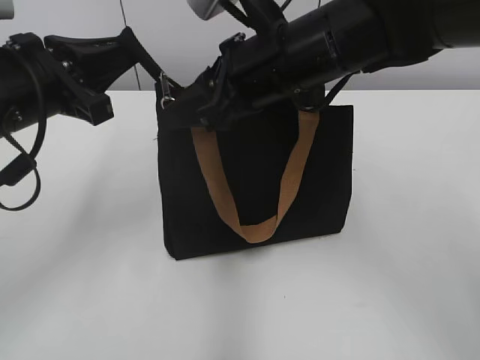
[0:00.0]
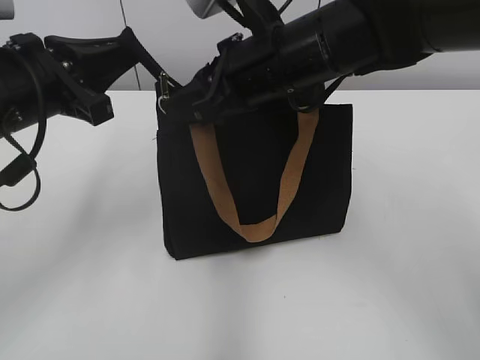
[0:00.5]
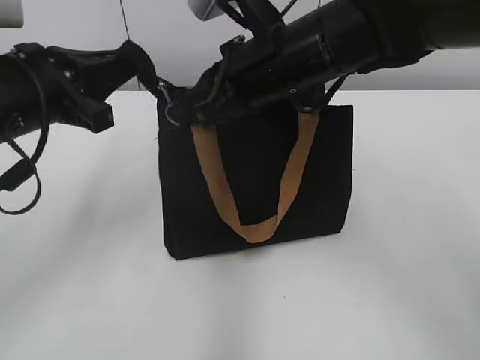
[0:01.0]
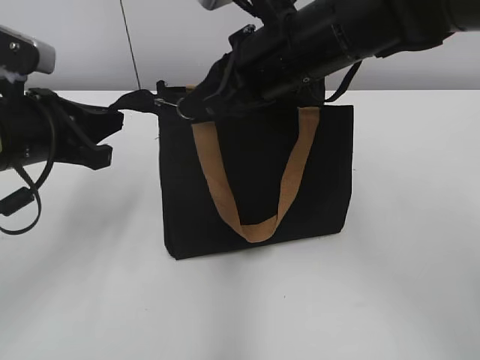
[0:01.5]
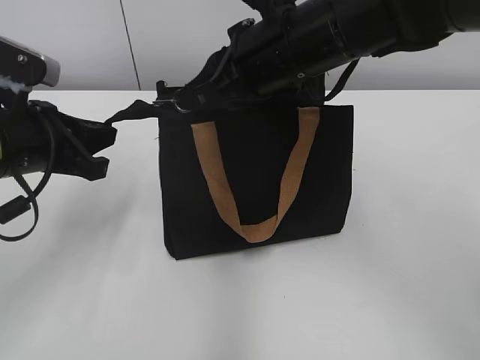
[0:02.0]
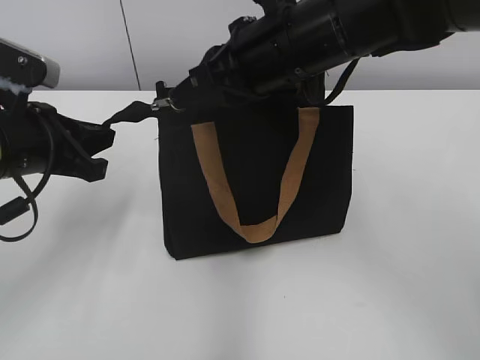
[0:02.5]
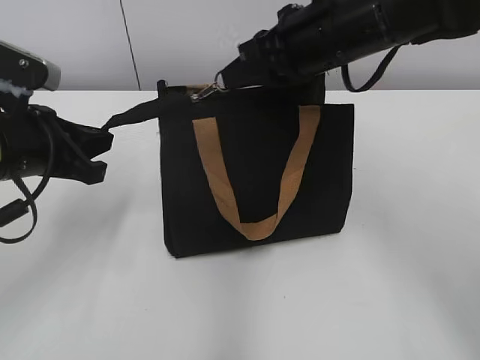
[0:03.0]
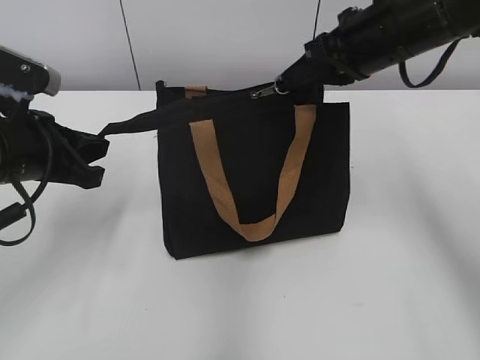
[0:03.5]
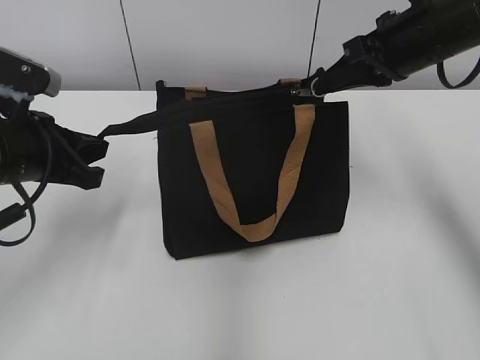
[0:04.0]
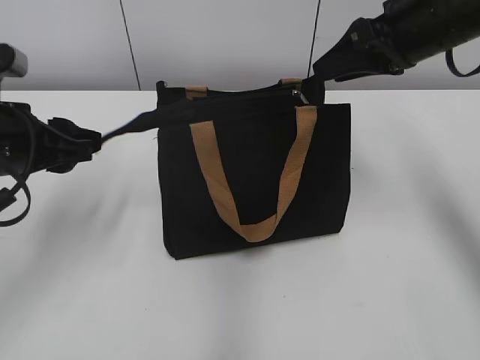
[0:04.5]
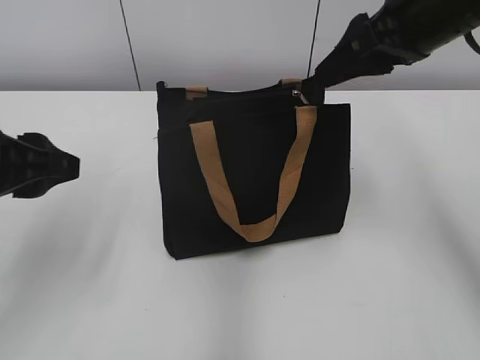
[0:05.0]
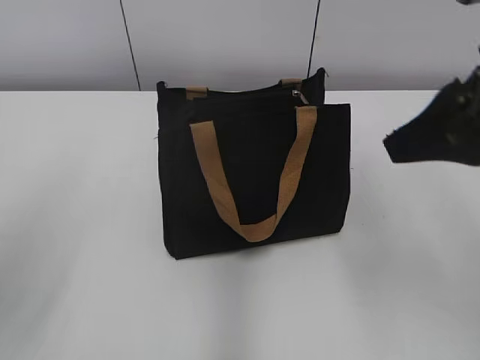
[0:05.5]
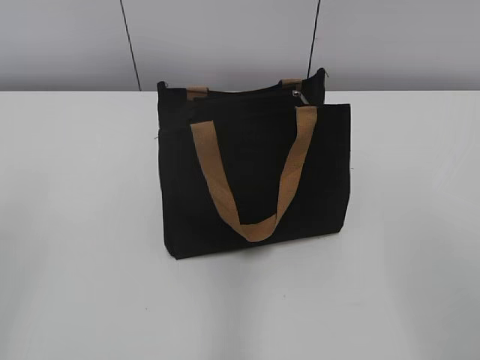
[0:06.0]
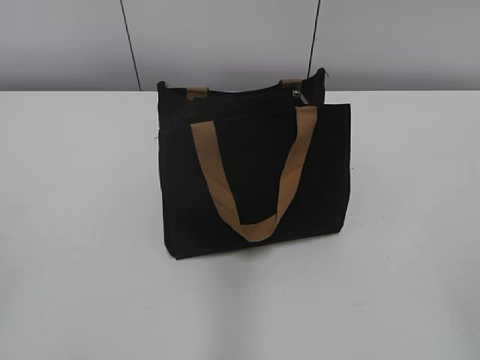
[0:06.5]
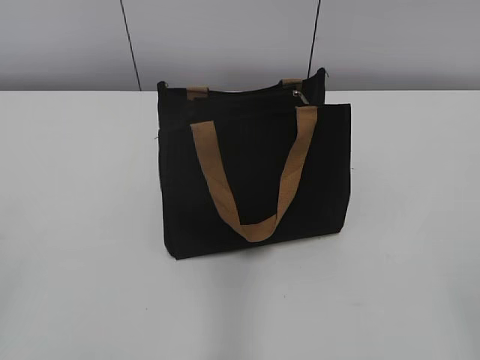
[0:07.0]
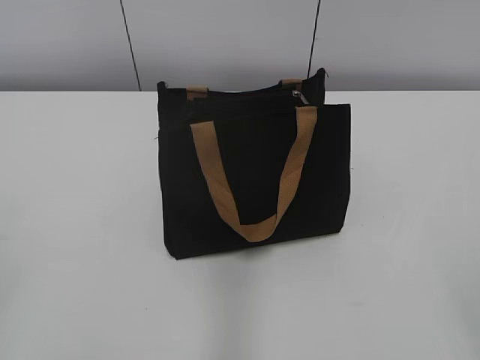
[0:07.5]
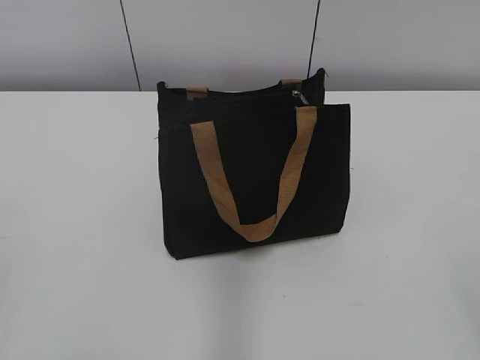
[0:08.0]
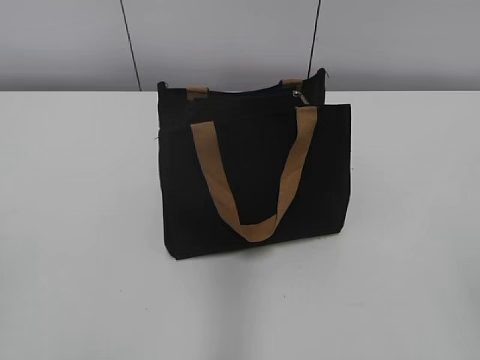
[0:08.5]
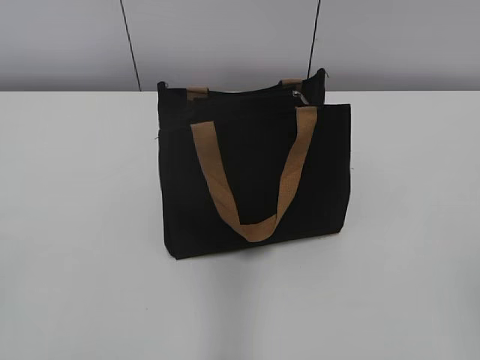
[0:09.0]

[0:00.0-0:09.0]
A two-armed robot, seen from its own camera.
Step, 0:00.0 to 0:04.0: Zip up the bag with your right hand.
0:00.0 to 0:02.0: The right gripper closes its fingers; the left gripper moves roughly 5 cm.
0:02.0 to 0:04.5: The right gripper goes some 15 cm to the right, and opens its fingers, while the left gripper opens its fingers.
0:04.5 to 0:07.0: The left gripper travels backward by some 25 cm; the right gripper moves backward, about 35 cm.

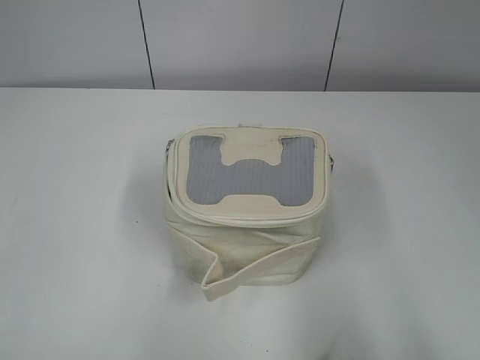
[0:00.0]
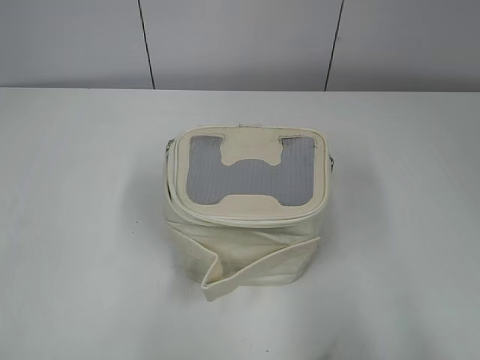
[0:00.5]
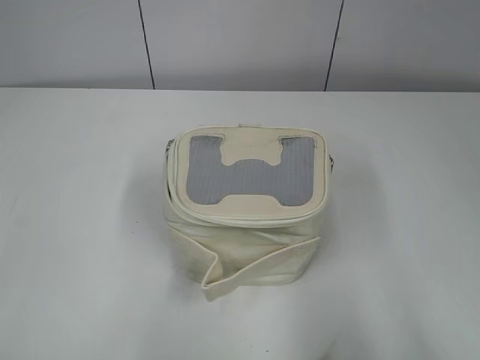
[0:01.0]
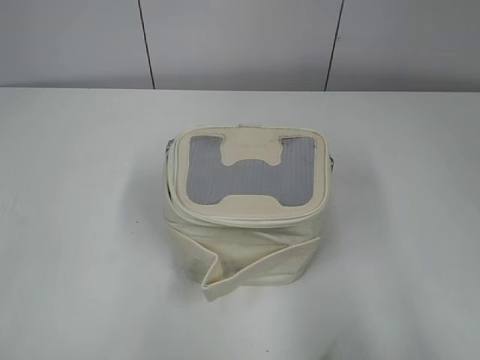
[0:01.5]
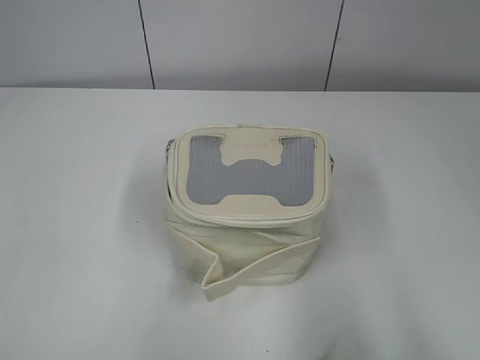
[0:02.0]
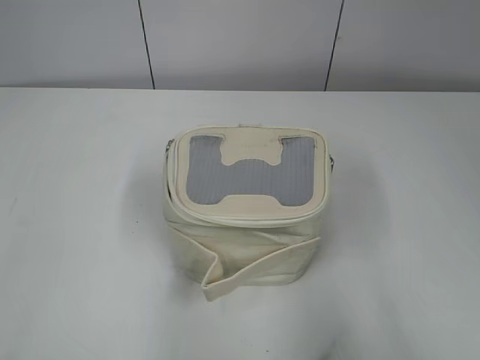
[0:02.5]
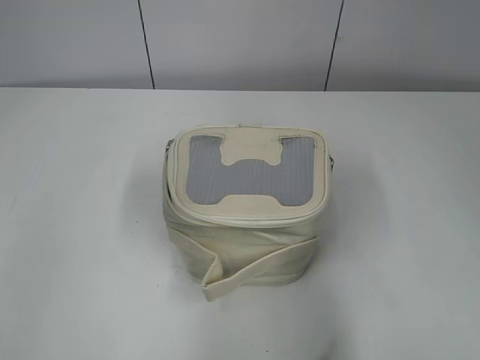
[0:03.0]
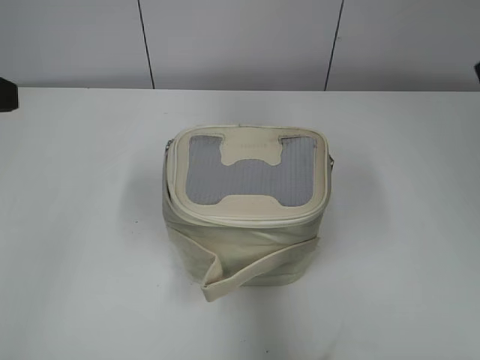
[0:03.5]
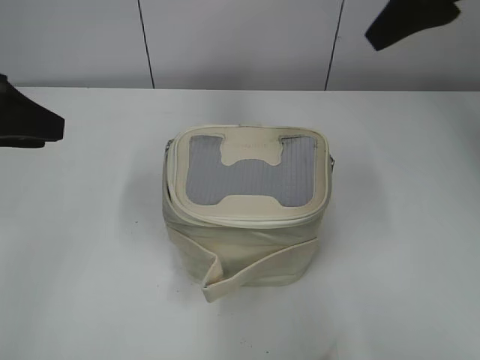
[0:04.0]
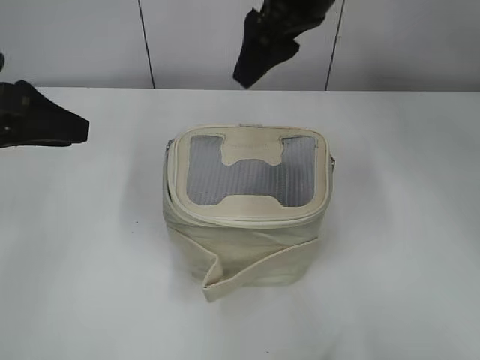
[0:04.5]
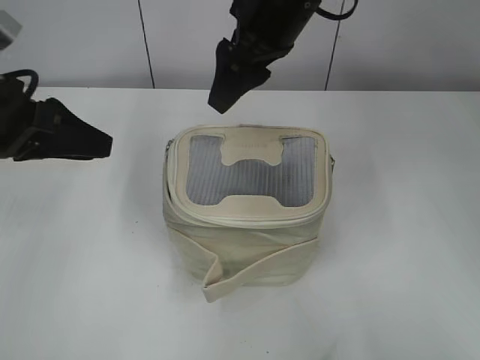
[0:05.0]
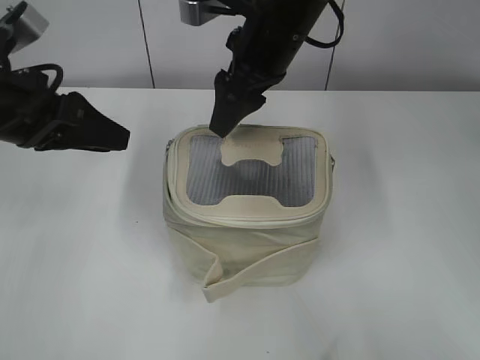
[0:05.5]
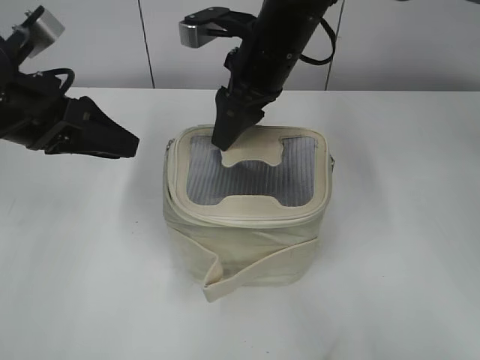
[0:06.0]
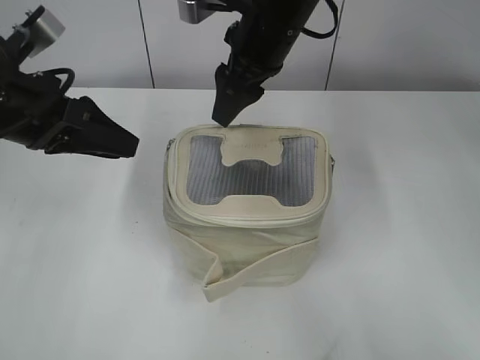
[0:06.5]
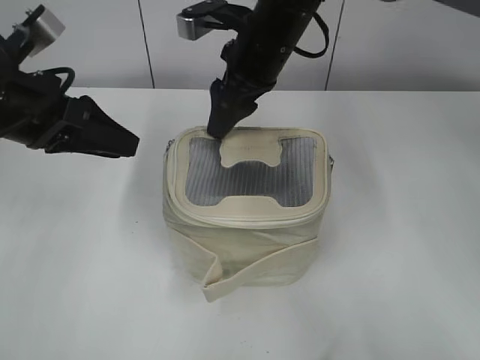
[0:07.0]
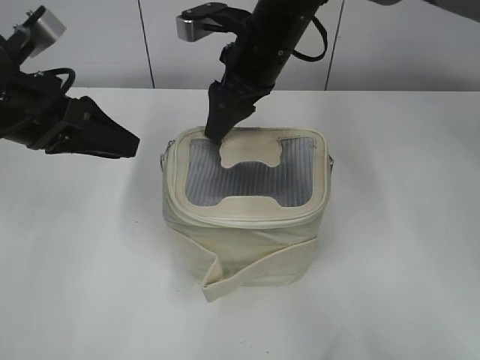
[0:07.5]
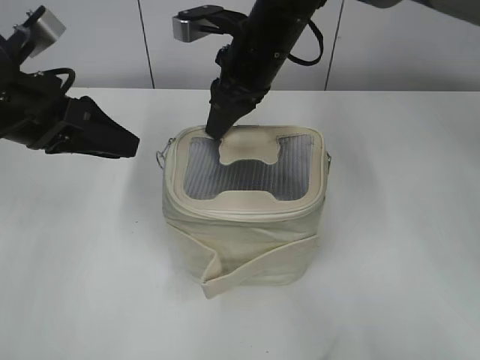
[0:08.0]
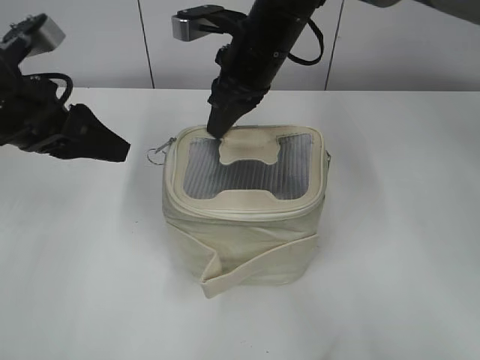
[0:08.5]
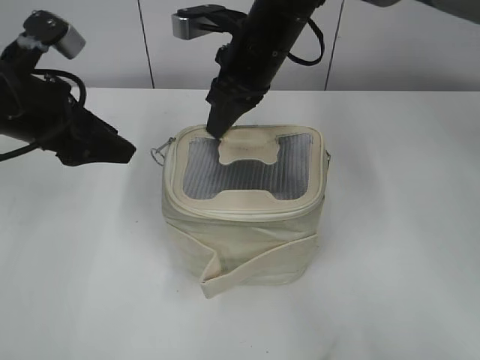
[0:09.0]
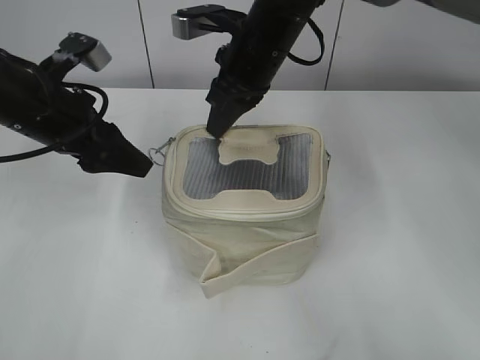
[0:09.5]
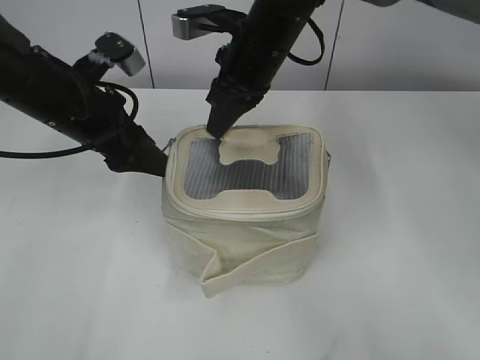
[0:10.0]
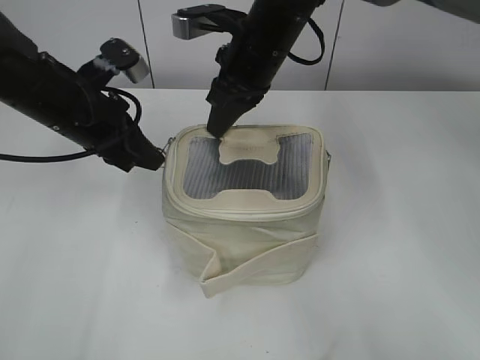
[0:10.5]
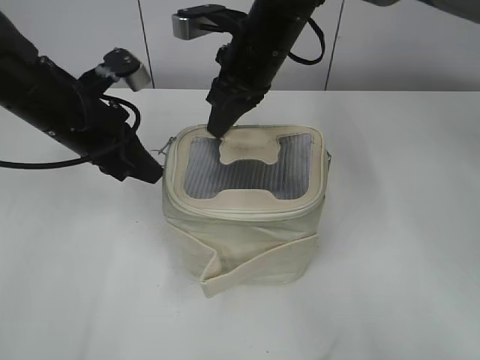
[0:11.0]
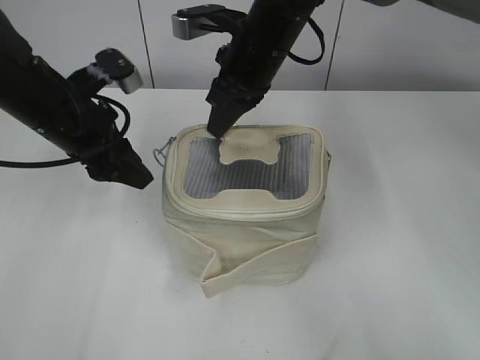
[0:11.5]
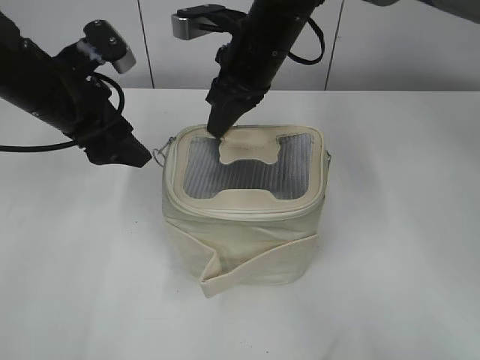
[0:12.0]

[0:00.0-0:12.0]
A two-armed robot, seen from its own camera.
0:02.0 to 0:04.0: The two grippers go some 30 cm forward.
0:04.0 to 0:06.0: The left gripper shifts by some 10 cm; the right gripper goes roughly 20 cm to the left and downward.
0:06.0 to 0:08.0: The right gripper closes its fingers.
0:08.0 to 0:10.0: The left gripper shifts by roughly 5 cm, and opens its fingers.
0:10.0 to 0:12.0: The left gripper closes and opens again.

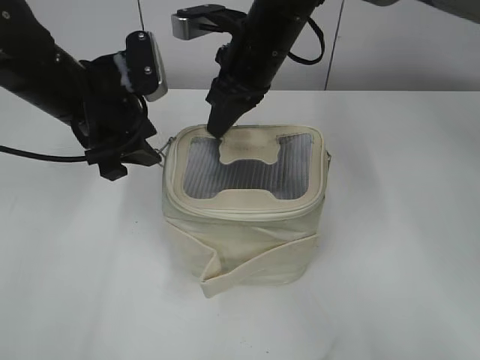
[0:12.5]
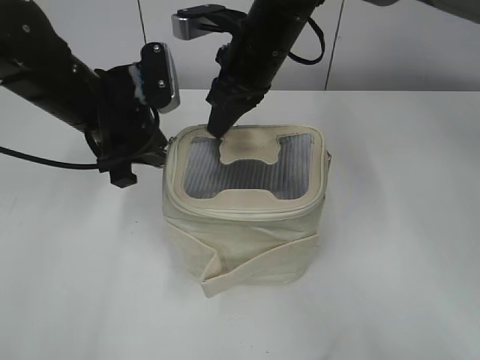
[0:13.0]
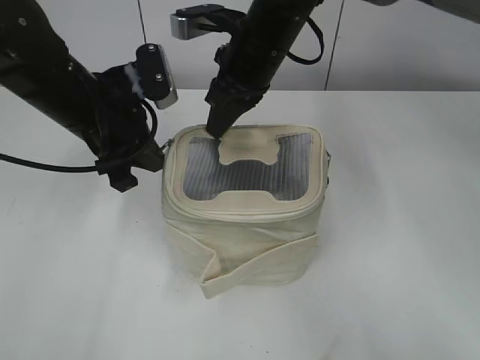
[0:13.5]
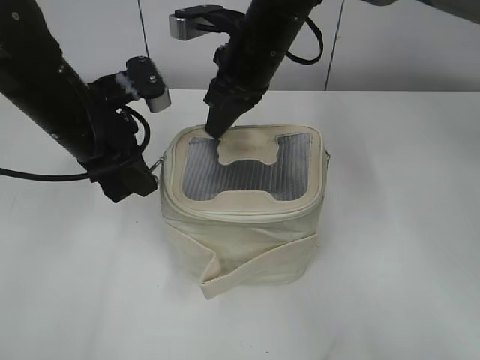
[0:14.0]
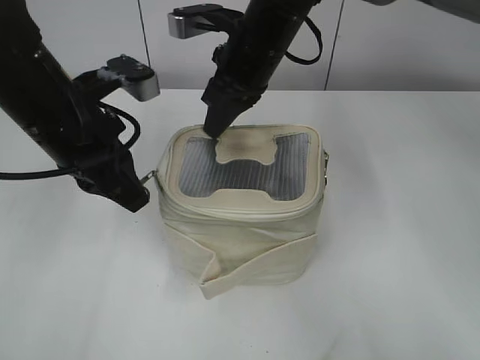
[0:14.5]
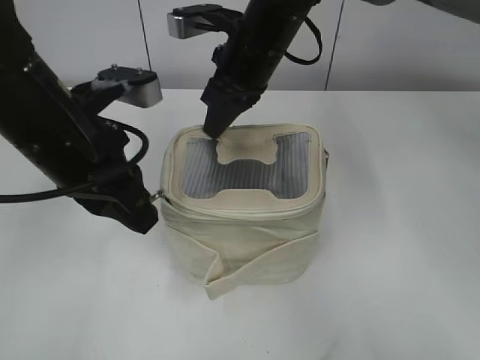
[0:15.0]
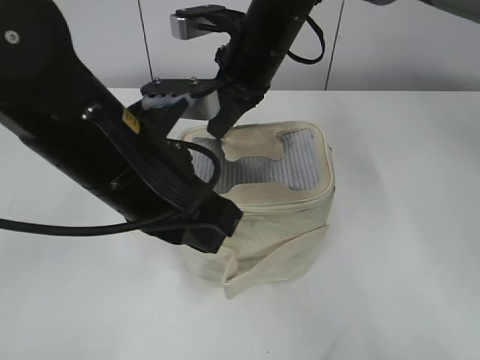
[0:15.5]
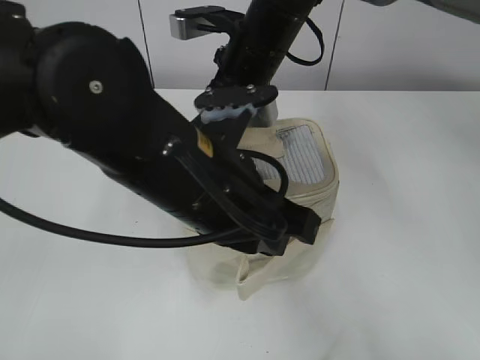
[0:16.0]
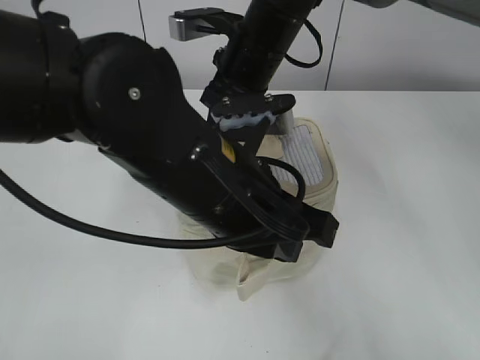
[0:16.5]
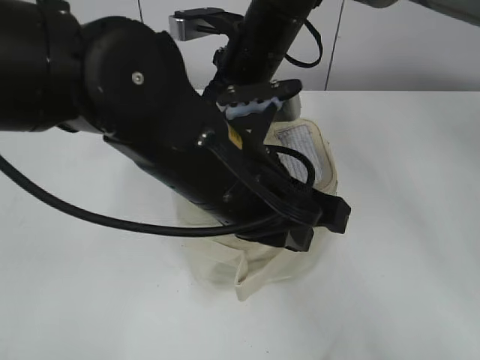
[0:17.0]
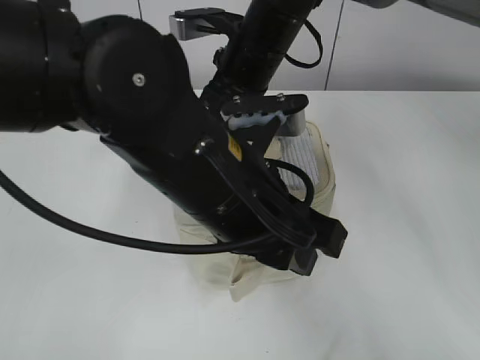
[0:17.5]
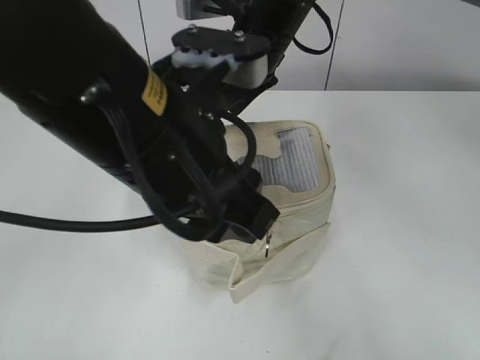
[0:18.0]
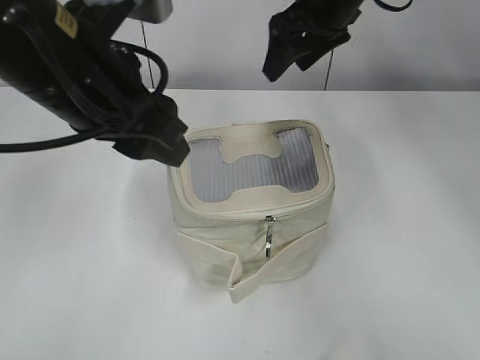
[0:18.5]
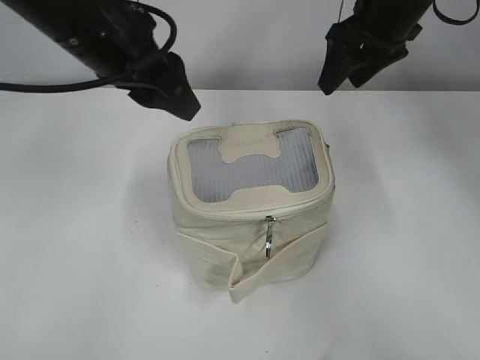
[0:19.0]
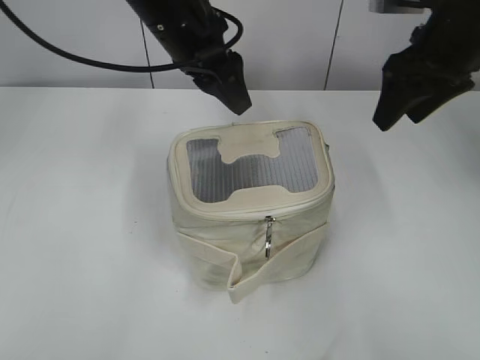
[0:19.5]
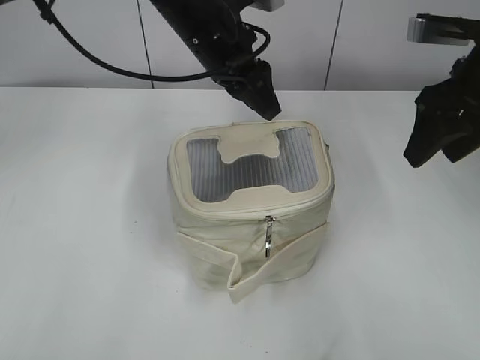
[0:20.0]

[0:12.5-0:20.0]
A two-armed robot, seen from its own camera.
0:12.5 to 0:14.5: The left gripper closes.
0:14.5 to 0:16.5: The left gripper is displaced to the right and backward by approximately 15 cm.
0:16.5 to 0:18.0: The right gripper opens its fingers. Meanwhile the left gripper shifts some 5 cm upward, and opens.
0:18.0 to 0:20.0: The right gripper goes roughly 20 cm to the right, while the left gripper moves forward, about 25 cm.
